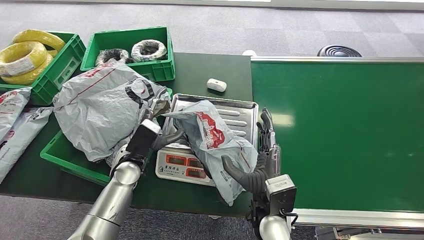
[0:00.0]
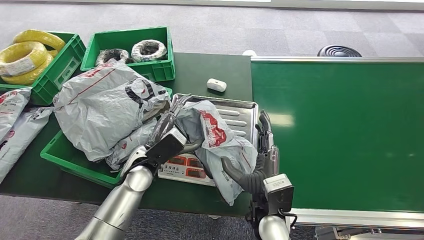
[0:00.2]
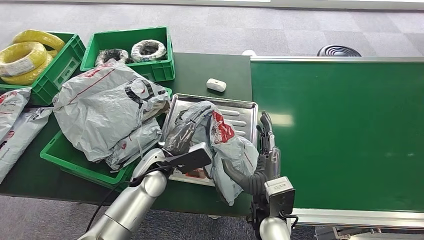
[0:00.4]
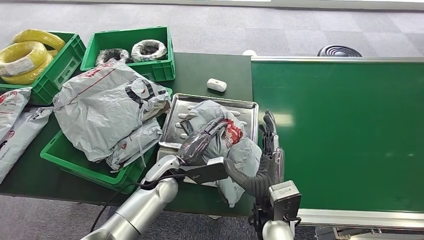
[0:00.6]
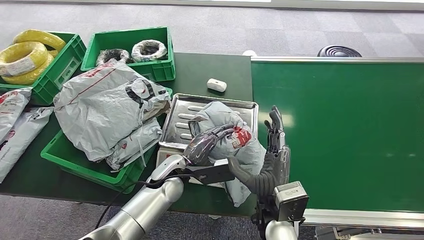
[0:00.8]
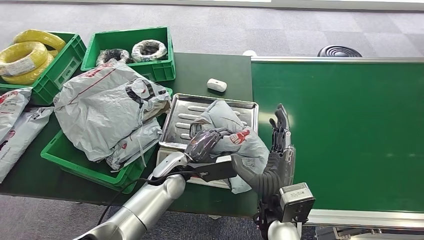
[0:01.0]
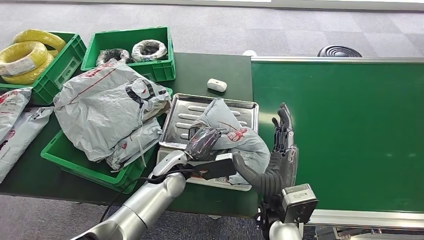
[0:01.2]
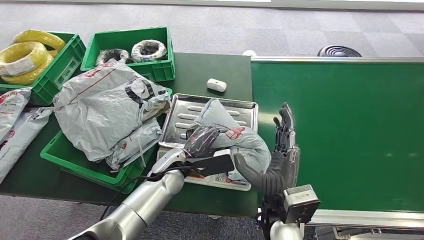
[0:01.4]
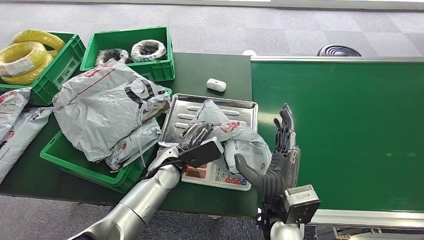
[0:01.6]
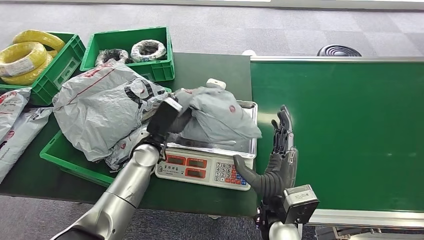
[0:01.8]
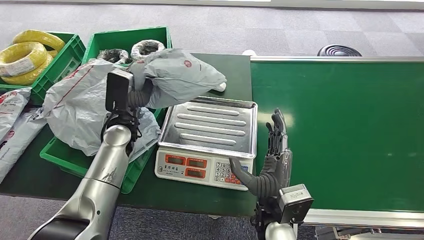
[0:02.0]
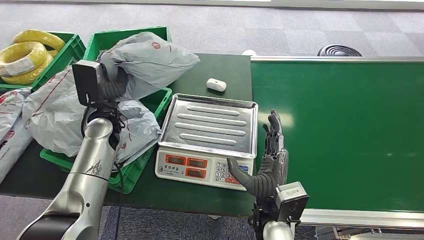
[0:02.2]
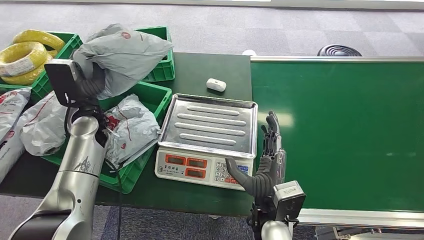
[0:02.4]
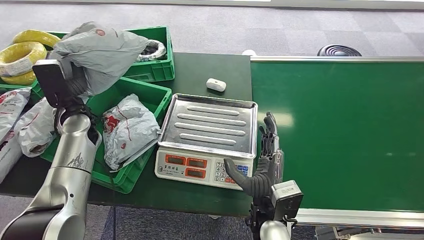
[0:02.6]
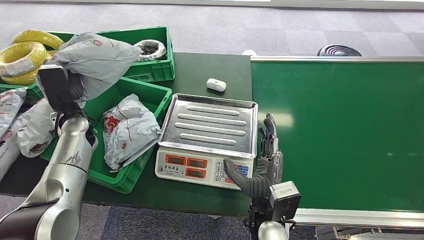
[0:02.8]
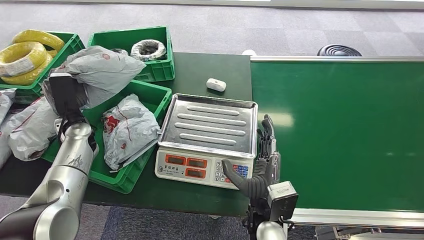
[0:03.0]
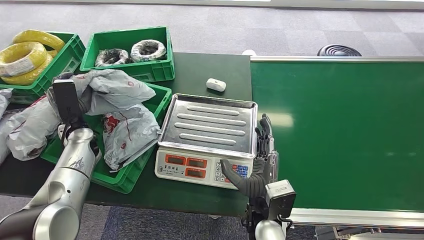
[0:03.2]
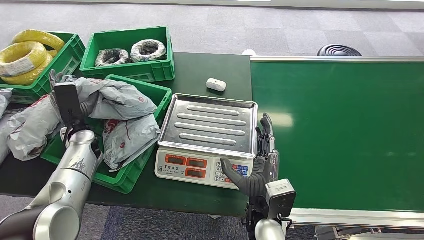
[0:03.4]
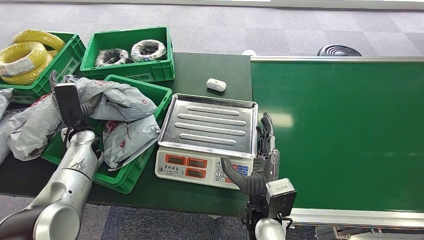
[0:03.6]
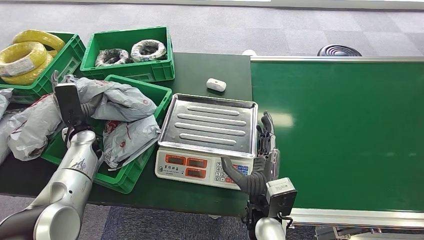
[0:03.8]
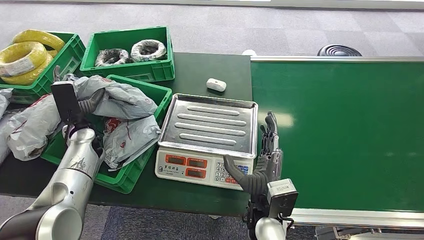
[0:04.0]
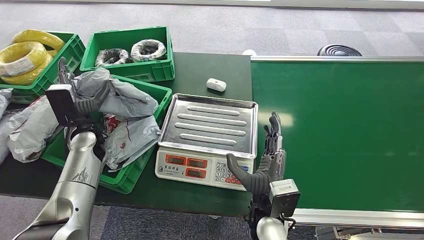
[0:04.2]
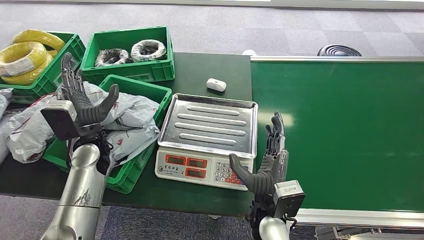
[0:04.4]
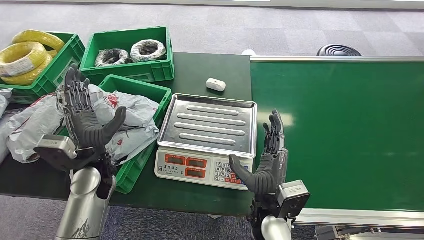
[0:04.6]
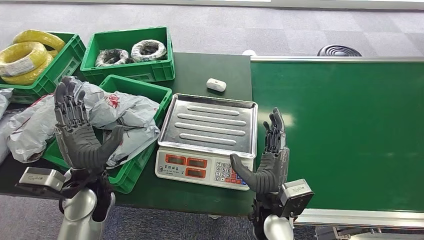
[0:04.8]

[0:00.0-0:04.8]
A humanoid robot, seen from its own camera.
Step, 0:00.0 to 0:02.2: Pick up the package from the inbound machine.
Step, 0:02.4 to 0:04.8: Place the package into the parcel locker.
0:00.0 to 0:01.6: The left hand moves to the right, roughly 10 cm.
0:03.2 to 0:04.8: The left hand travels backward and to the right by approximately 20 cm.
